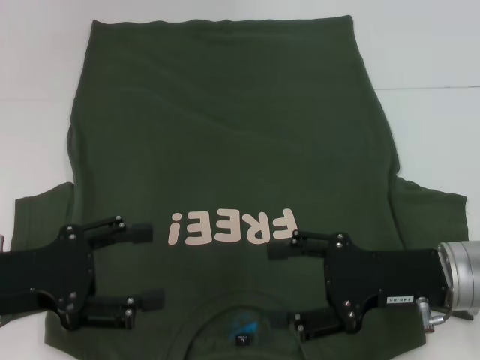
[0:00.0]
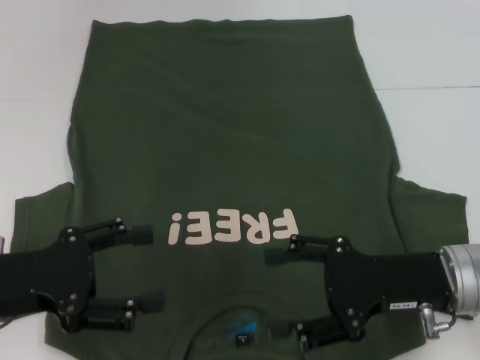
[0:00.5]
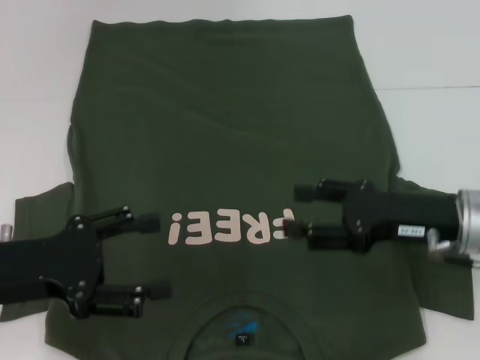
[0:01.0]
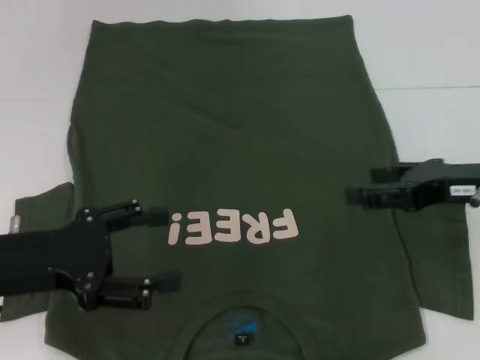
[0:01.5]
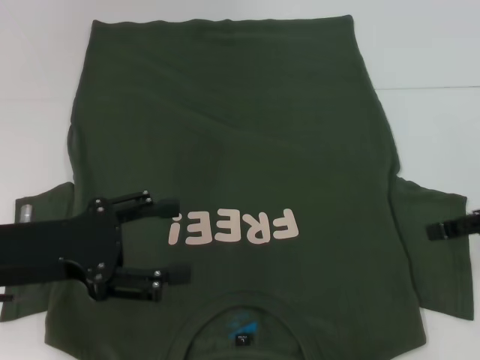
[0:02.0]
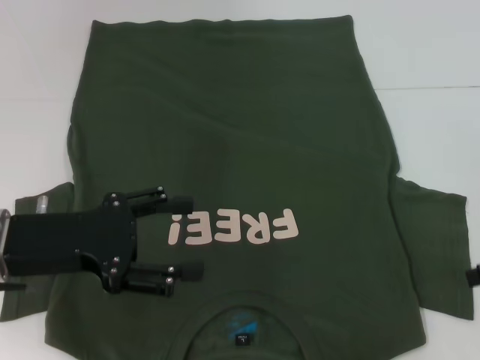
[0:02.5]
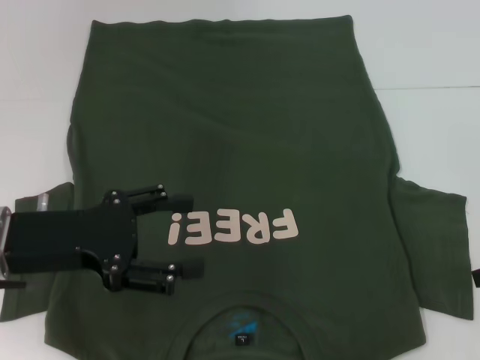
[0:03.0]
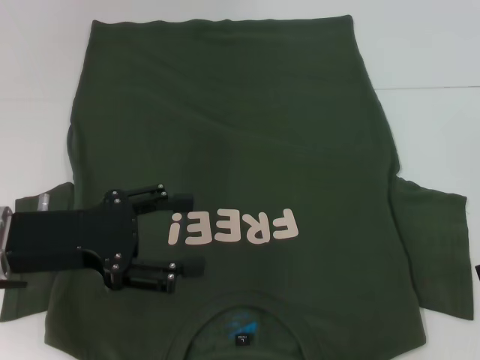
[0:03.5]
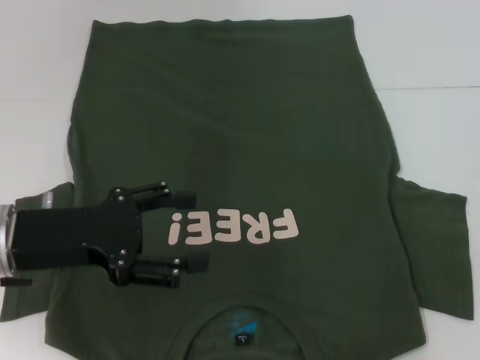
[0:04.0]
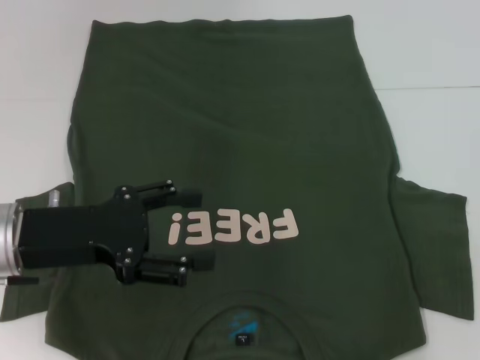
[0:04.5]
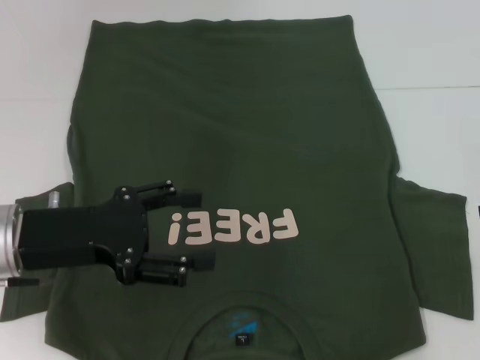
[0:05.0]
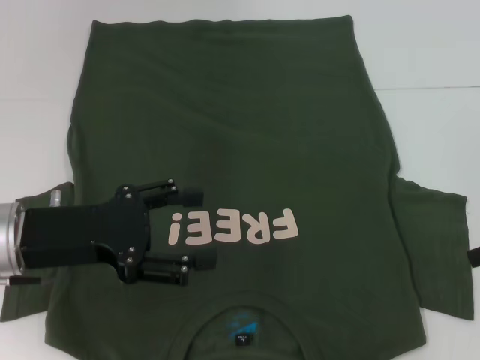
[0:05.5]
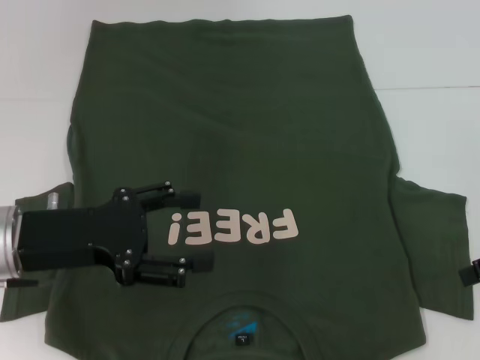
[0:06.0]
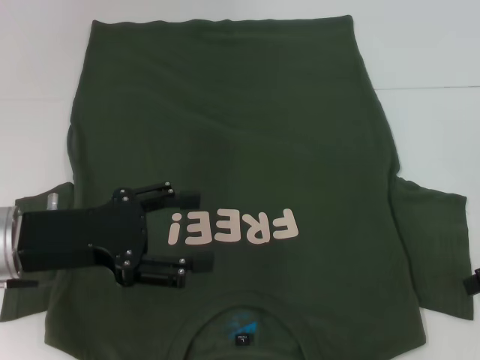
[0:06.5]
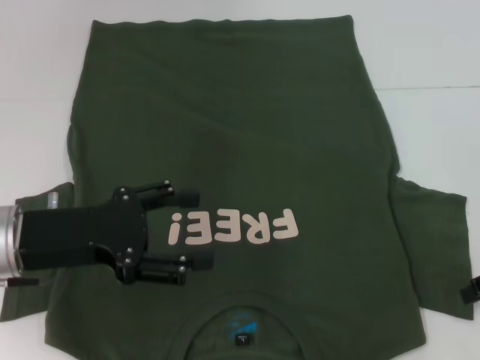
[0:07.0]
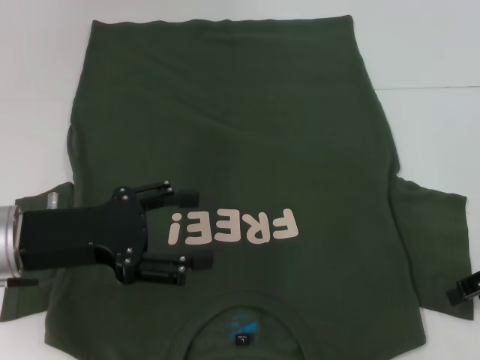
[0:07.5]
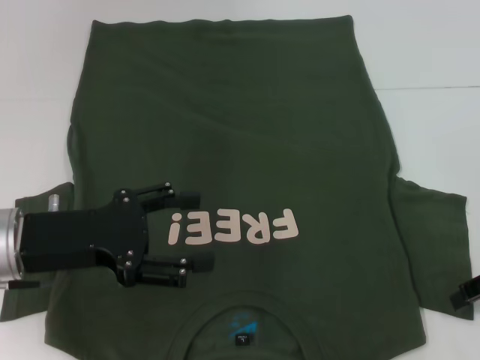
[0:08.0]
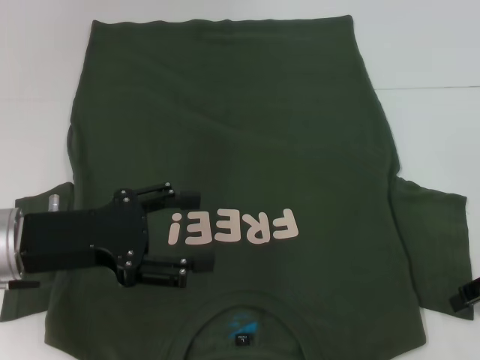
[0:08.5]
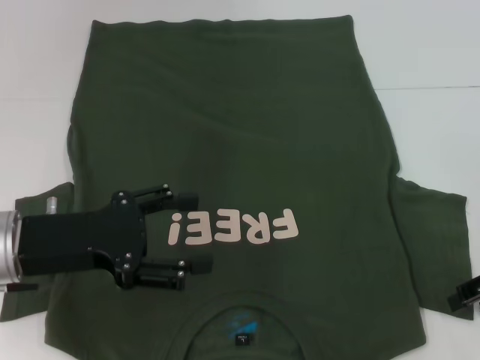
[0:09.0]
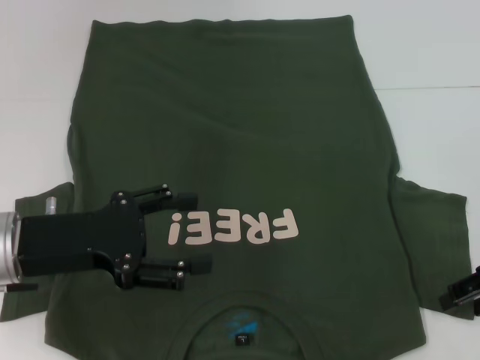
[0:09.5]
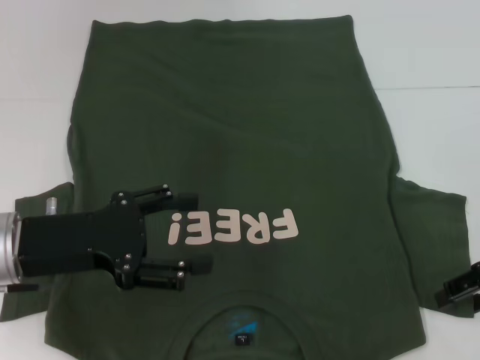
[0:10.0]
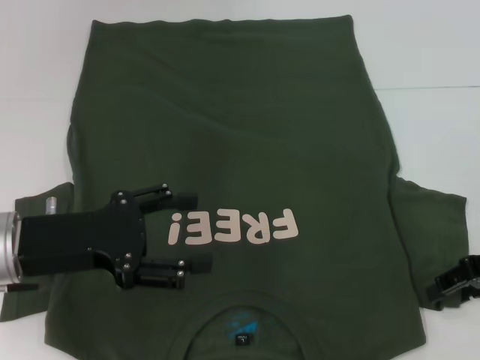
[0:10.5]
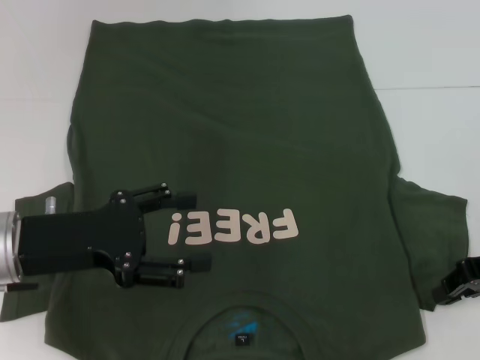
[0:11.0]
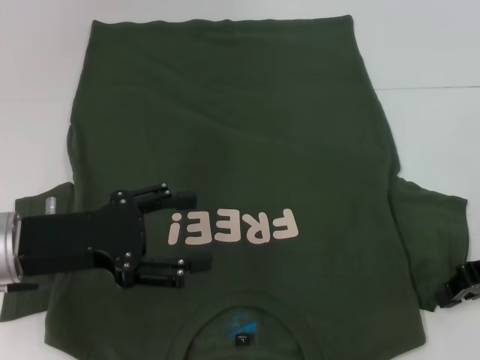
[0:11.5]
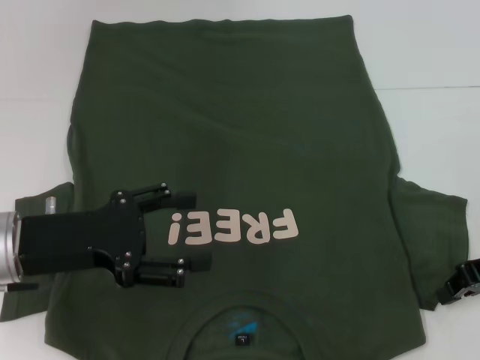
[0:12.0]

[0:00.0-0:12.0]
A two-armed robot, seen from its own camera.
0.0 to 2.0 s: The right gripper goes about 15 cm to the right and upward.
2.0 to 4.0 s: The right gripper goes some 5 cm to the right.
6.0 to 10.0 s: There are only small adjustments of the grippers.
10.0 to 12.0 s: The right gripper closes its fingers.

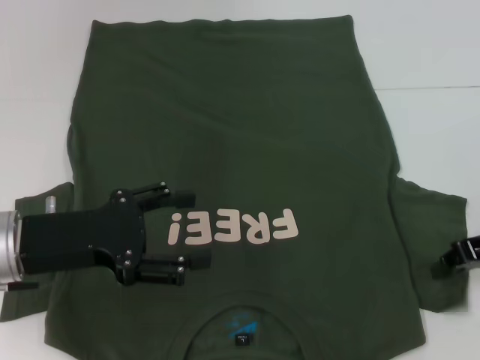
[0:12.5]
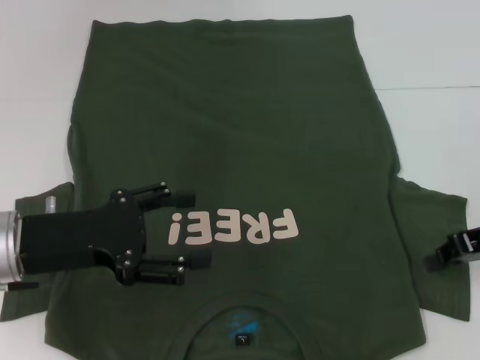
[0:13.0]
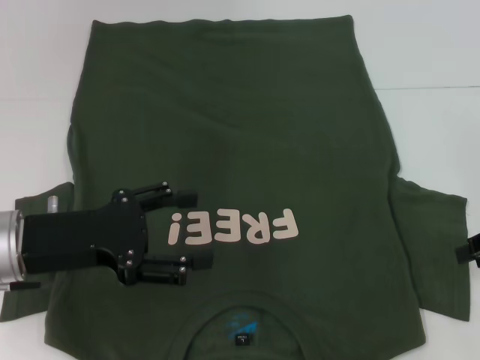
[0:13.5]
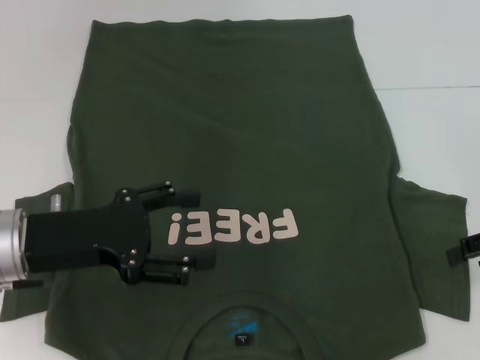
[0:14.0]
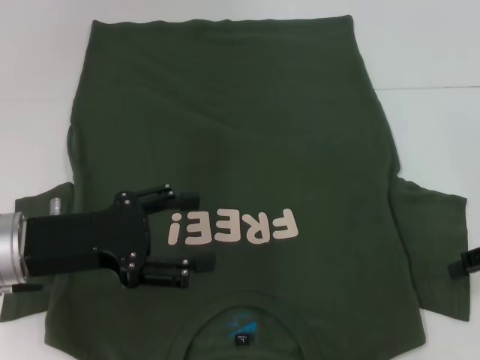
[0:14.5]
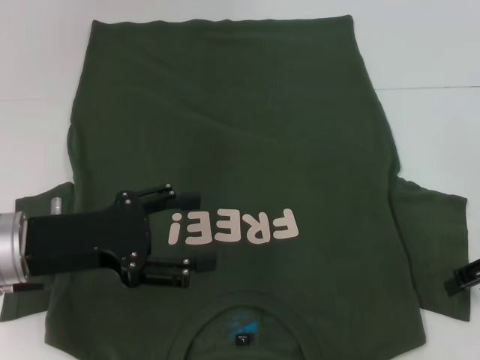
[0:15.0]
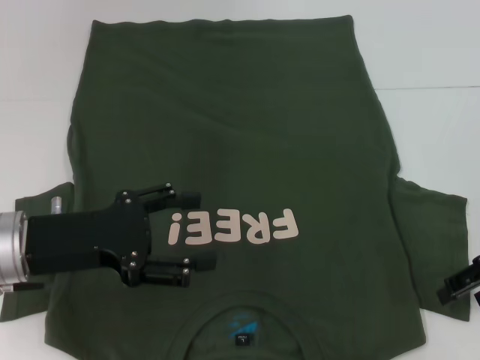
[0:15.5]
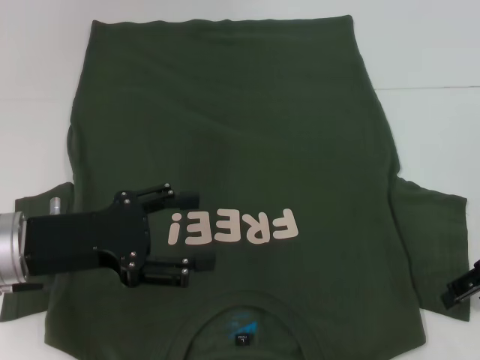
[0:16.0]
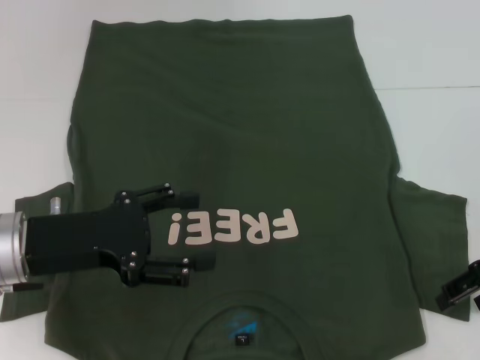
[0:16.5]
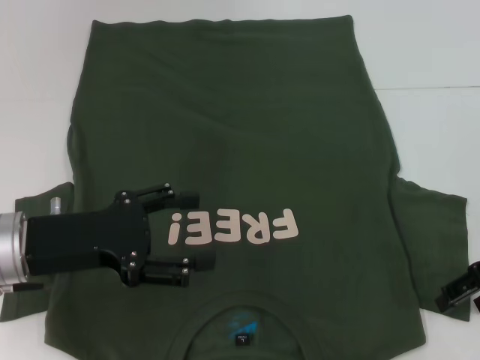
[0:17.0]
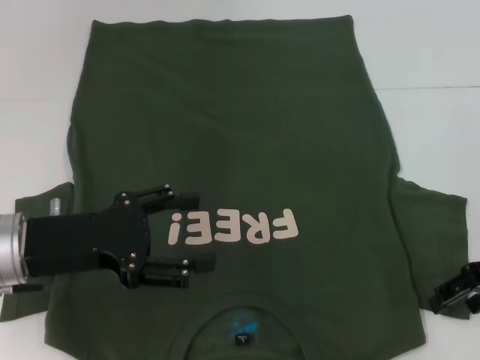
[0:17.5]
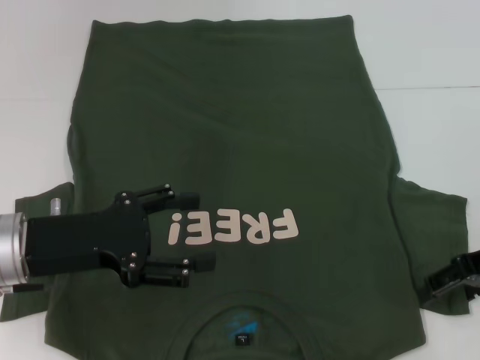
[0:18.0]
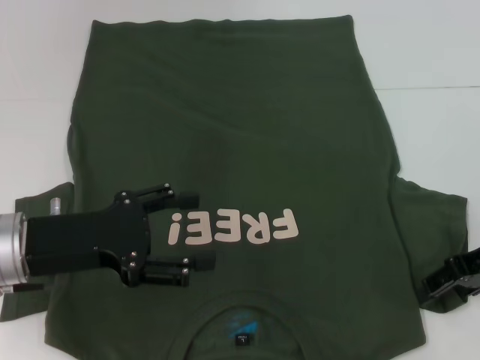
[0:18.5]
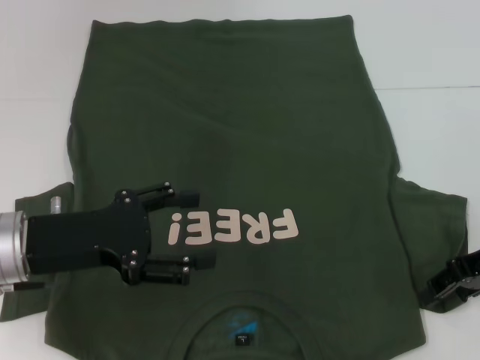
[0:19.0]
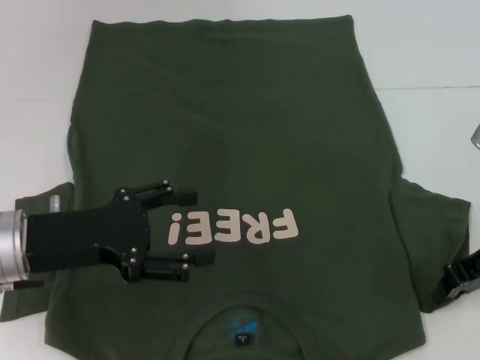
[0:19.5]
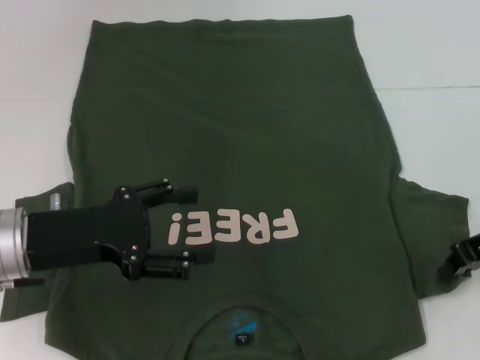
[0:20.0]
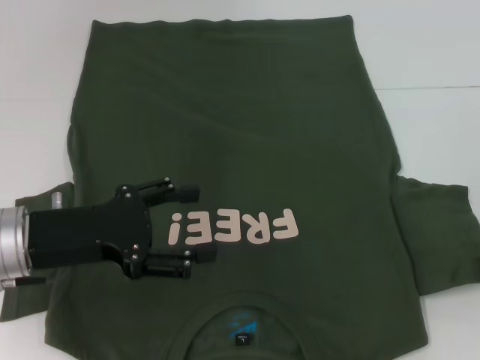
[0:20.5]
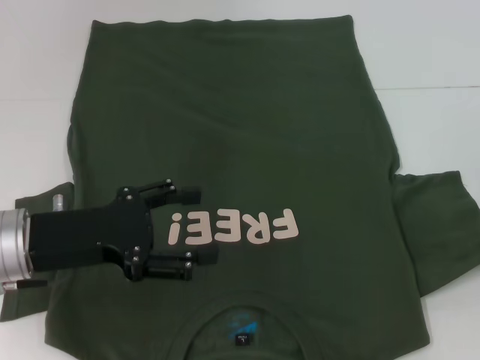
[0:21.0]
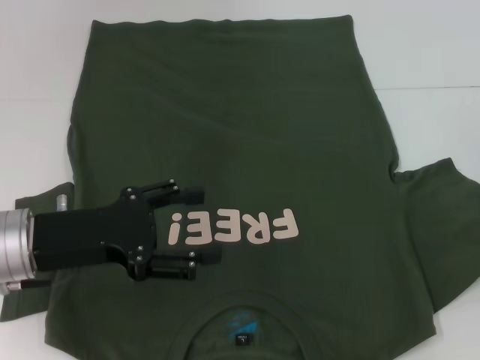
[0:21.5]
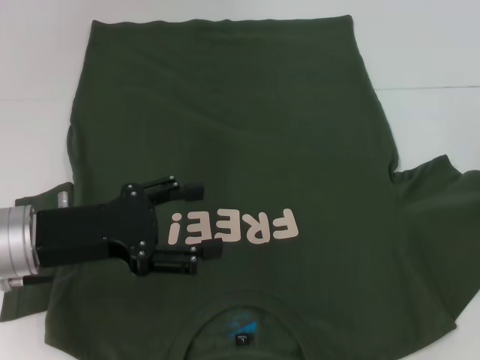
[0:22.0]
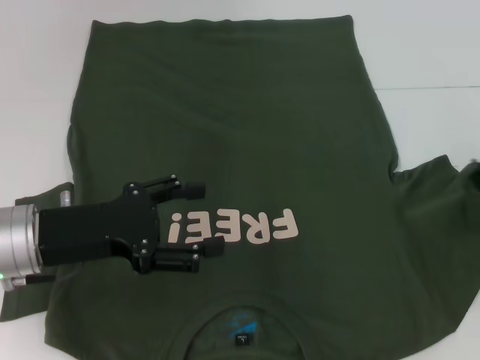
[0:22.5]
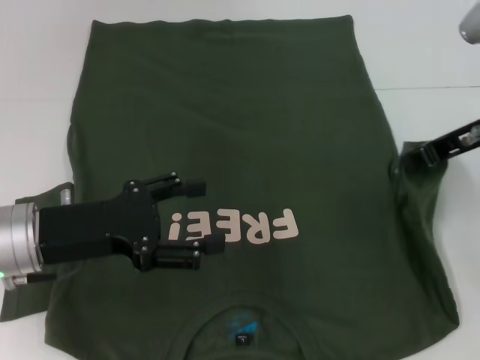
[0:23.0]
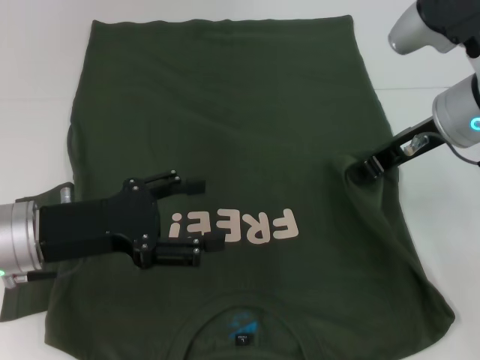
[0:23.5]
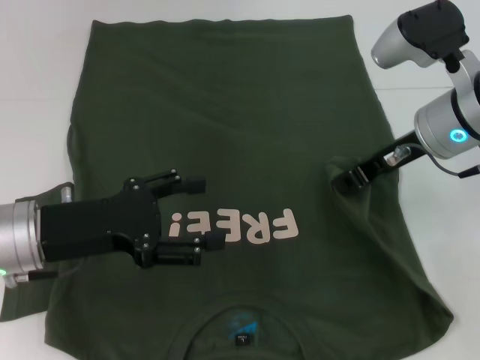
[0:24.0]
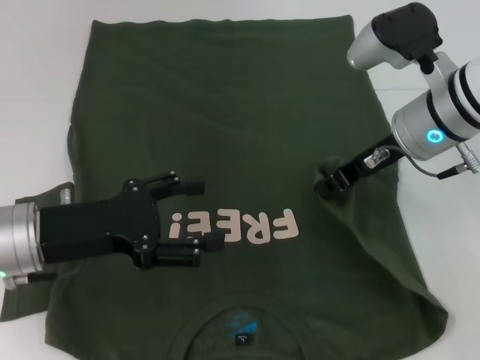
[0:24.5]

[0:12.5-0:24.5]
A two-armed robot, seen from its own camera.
12.5 to 14.5 s: The right gripper opens up.
14.5 to 18.5 s: The grippers make only small movements.
18.5 to 20.5 s: The right gripper closes its fingers.
22.5 to 24.5 s: The right gripper shifts roughly 15 cm to the left.

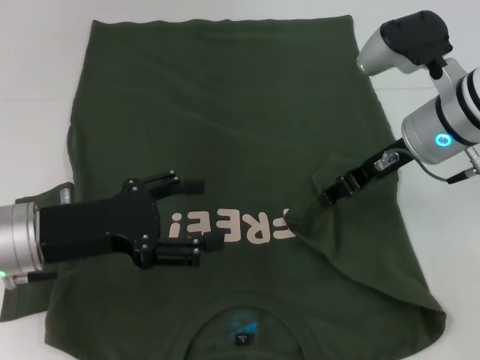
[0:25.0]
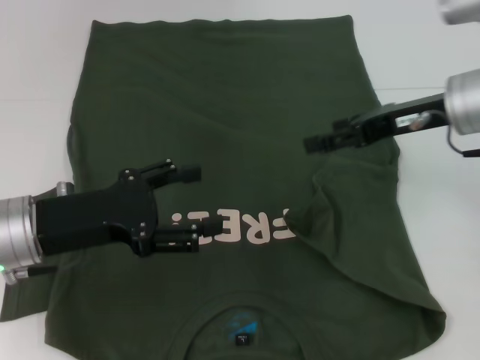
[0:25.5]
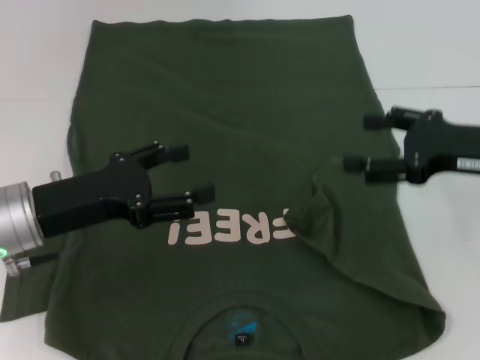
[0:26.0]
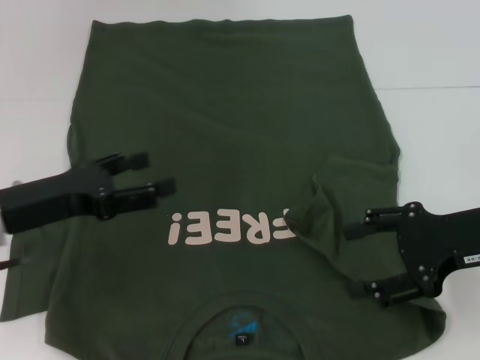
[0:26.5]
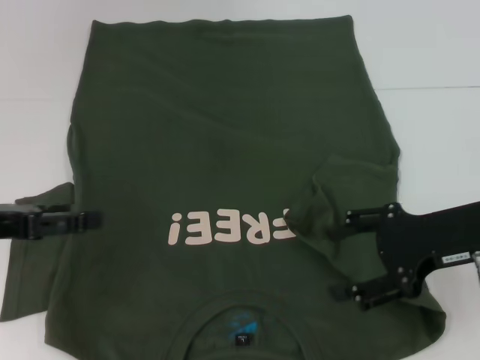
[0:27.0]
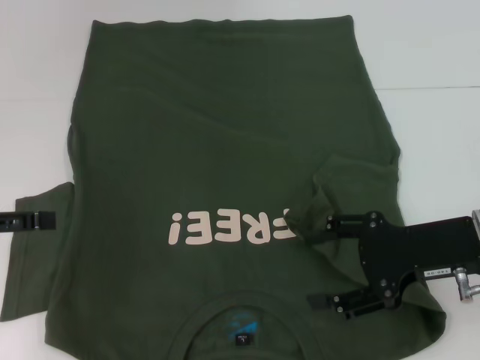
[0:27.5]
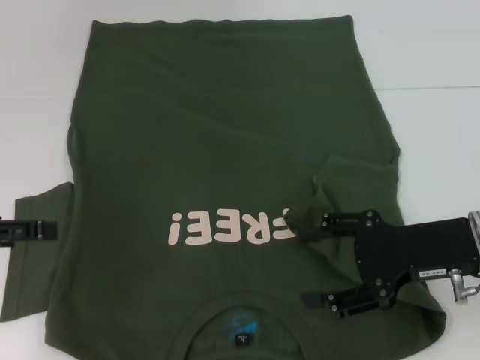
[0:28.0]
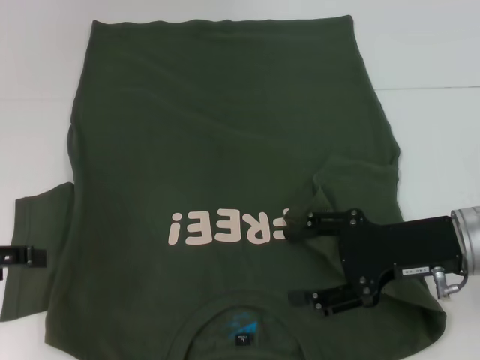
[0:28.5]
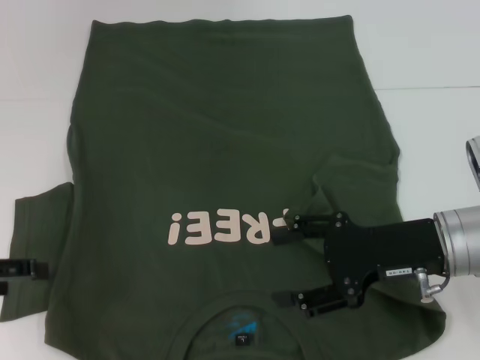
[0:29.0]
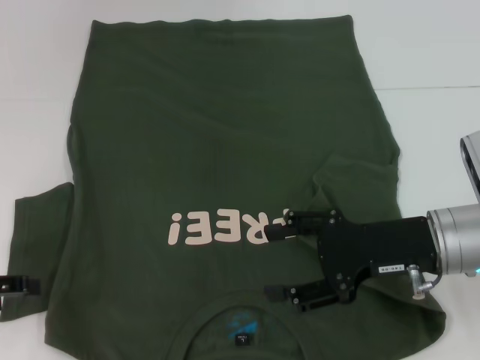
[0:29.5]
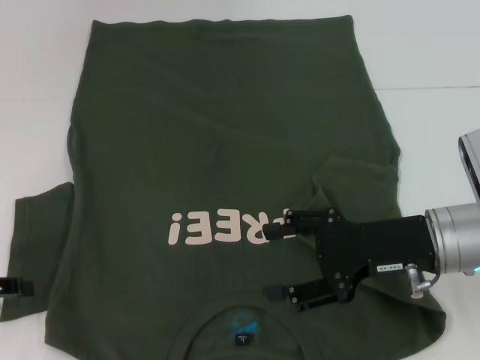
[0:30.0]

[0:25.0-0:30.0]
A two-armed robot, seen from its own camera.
25.0 to 27.5 s: The left gripper heads to the left and upward, covering approximately 10 cm; the right gripper goes roughly 10 cm backward and to the right, and opens its fingers.
27.5 to 30.0 s: The left gripper travels downward by roughly 5 cm.
